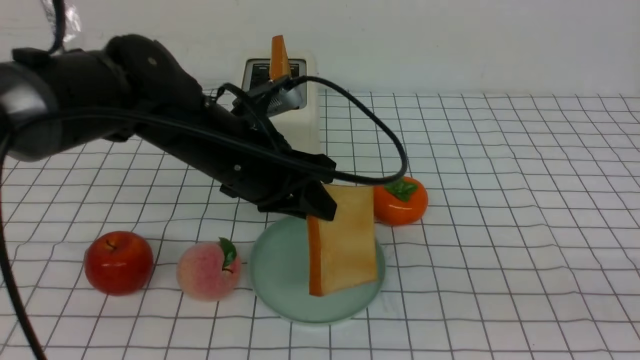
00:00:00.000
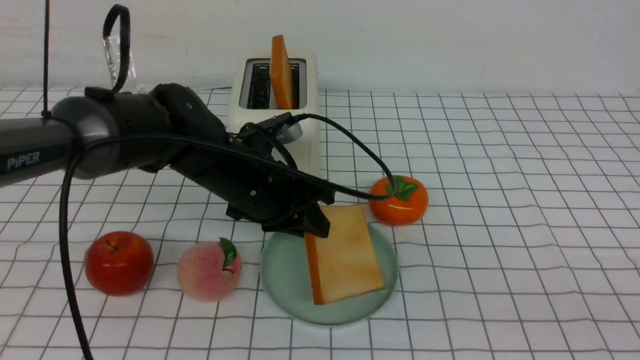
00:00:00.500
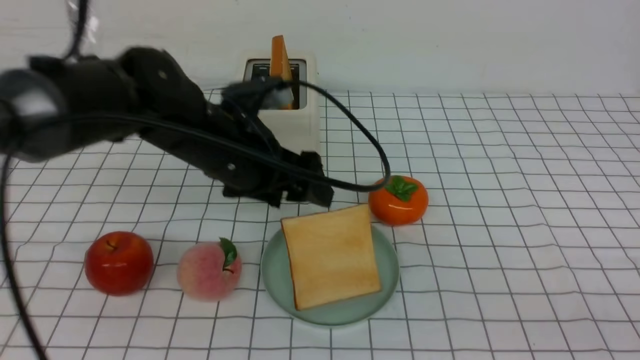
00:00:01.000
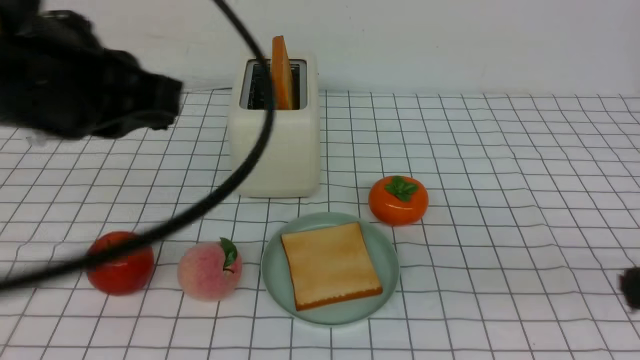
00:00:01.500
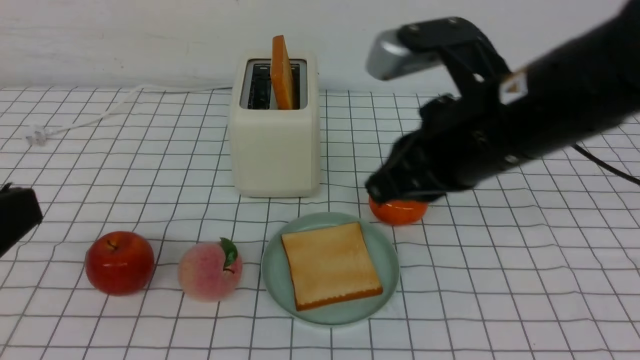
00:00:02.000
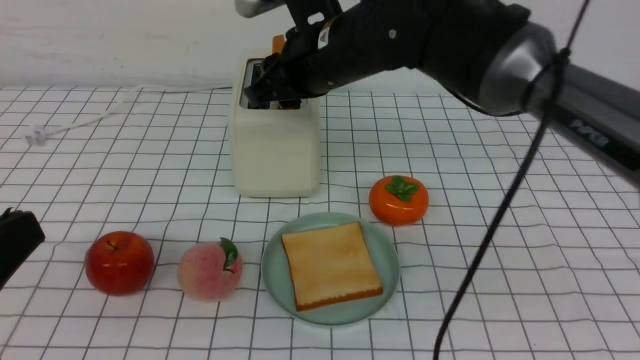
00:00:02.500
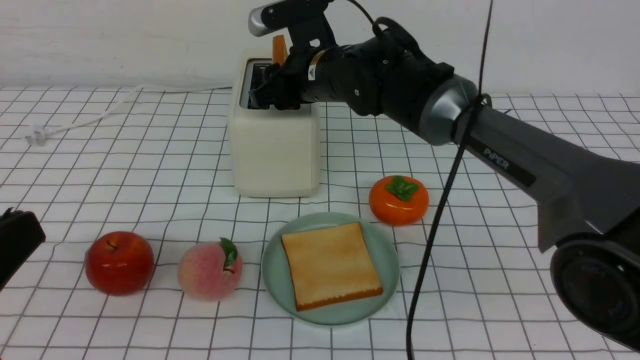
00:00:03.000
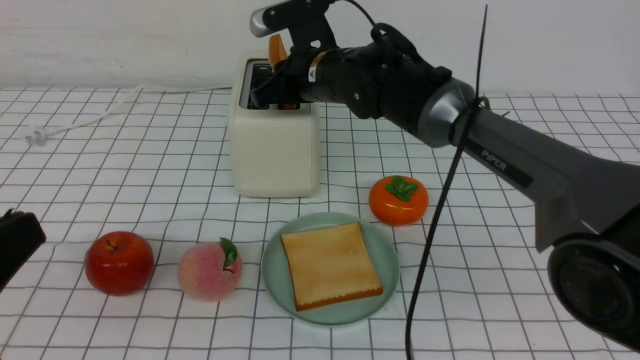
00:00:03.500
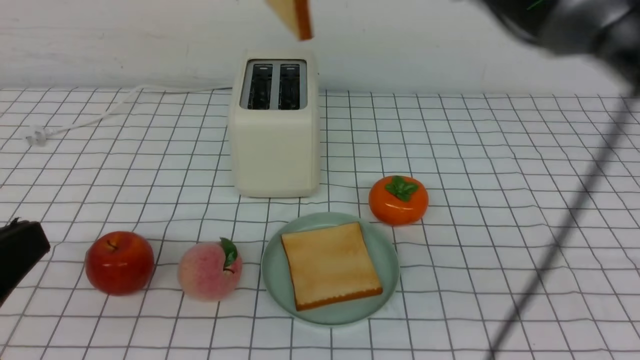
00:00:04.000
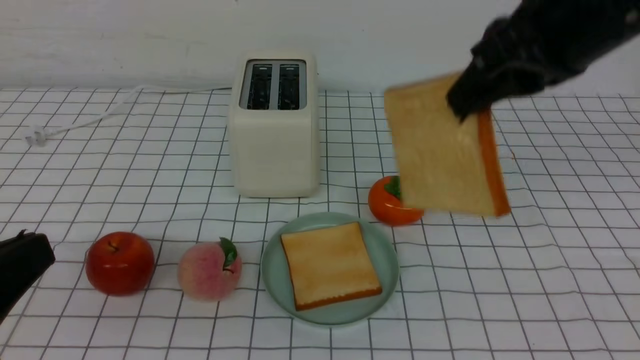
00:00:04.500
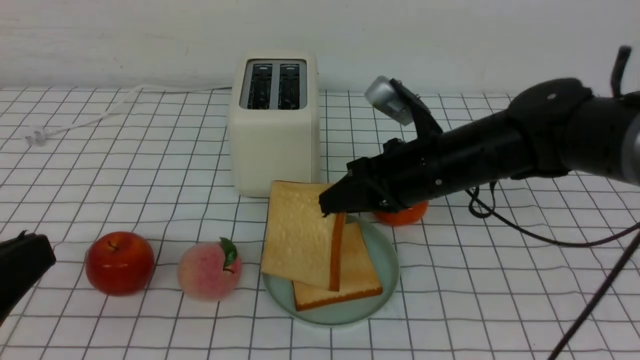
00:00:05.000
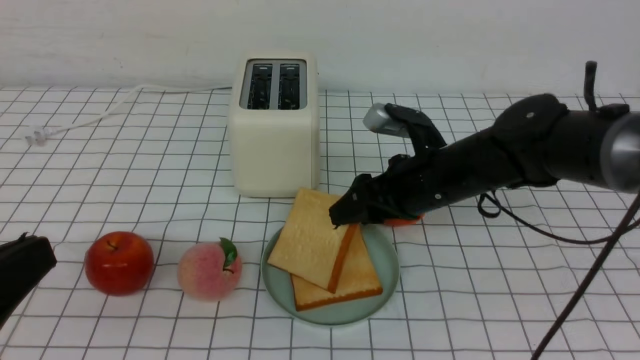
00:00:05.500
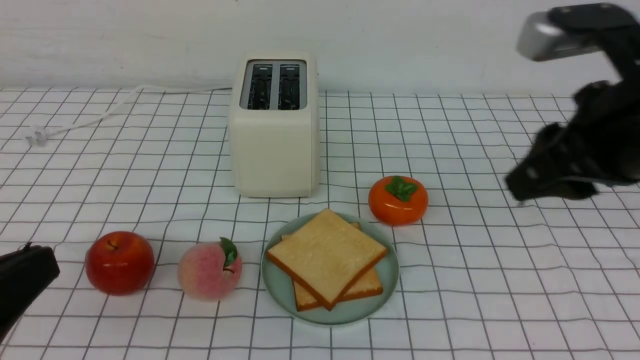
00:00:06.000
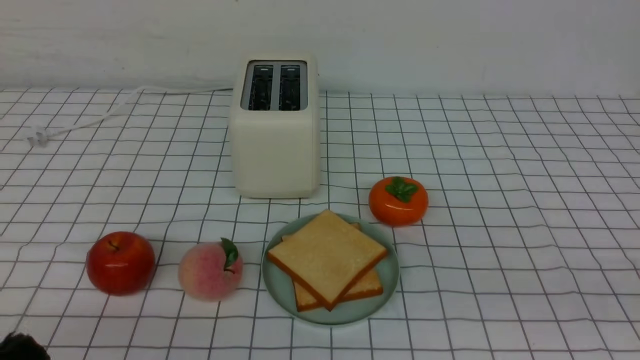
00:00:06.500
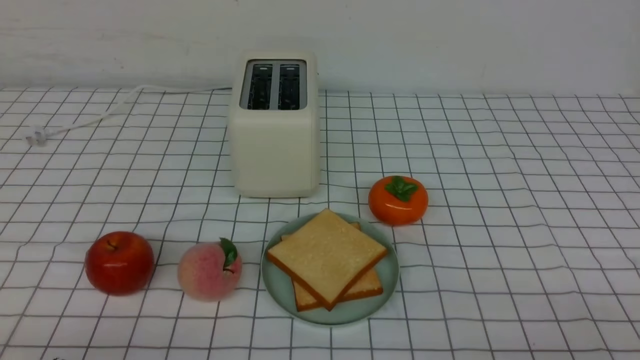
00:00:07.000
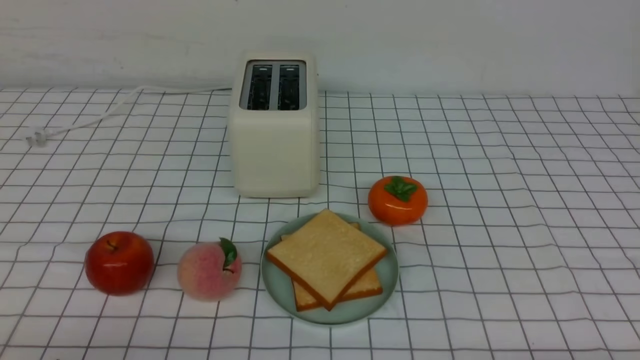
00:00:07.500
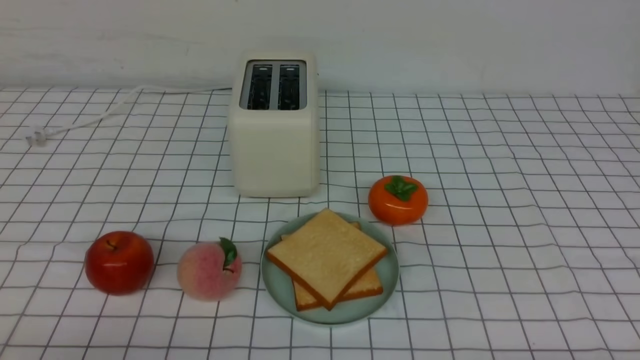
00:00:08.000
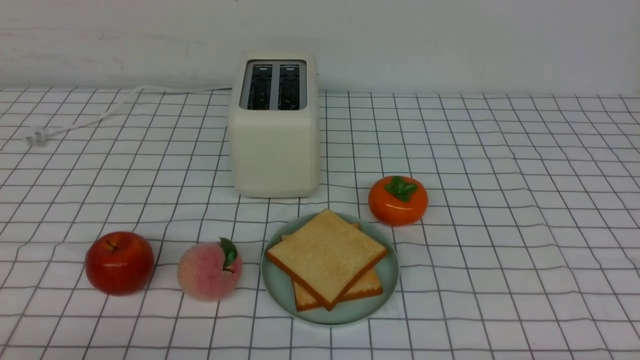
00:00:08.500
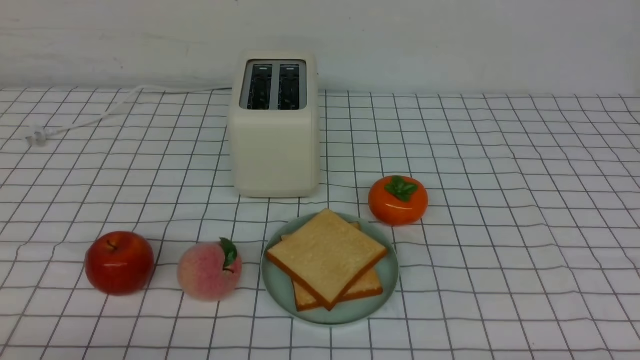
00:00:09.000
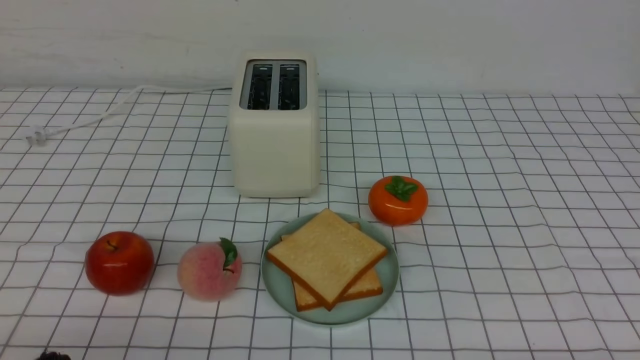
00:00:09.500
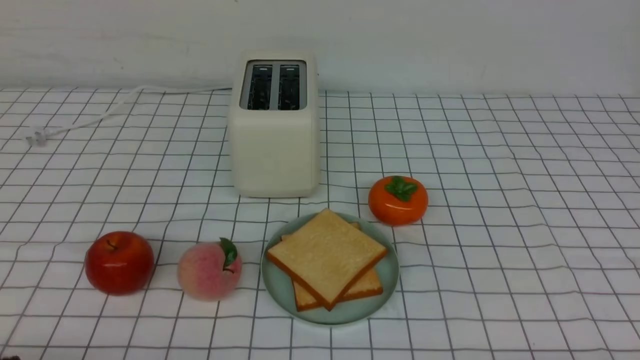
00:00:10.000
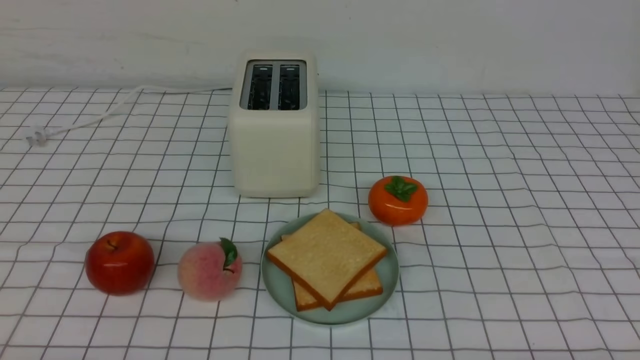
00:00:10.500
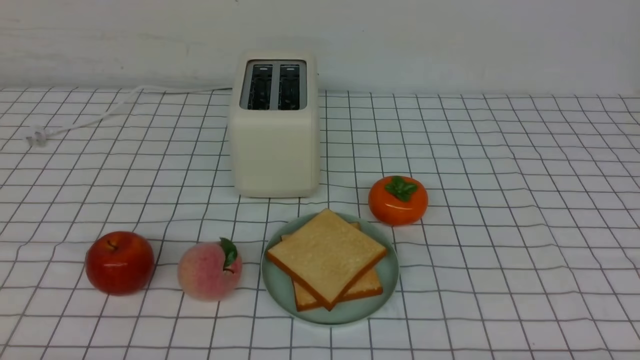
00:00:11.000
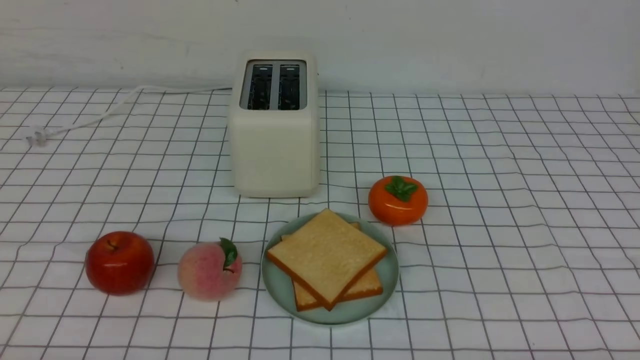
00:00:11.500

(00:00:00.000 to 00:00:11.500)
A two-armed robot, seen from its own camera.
Task of the whole recording: take toasted bread from bread machine on white checkered table place on plate.
Step, 00:00:01.500 - 00:00:03.500: use the right arm to take out a slice of bread.
Step, 00:00:04.000 - 00:00:05.500: use the right arm to put a slice of bread into the plate.
00:00:00.000 - 00:00:02.000: The right gripper heads forward and to the left, covering about 20 cm; the left gripper travels backward and to the left by roughly 25 cm, and opens, then closes once more.
00:00:02.000 - 00:00:04.000: The left gripper moves about 5 cm. The right gripper shifts about 20 cm forward and to the left, and opens and closes again.
00:00:04.000 - 00:00:06.000: The right gripper shifts about 20 cm to the right and backward, moves roughly 20 cm downward and comes back, and opens.
00:00:06.000 - 00:00:07.500: The right gripper is displaced downward, backward and to the right by roughly 30 cm, and closes its fingers. Meanwhile the left gripper shifts approximately 10 cm downward.

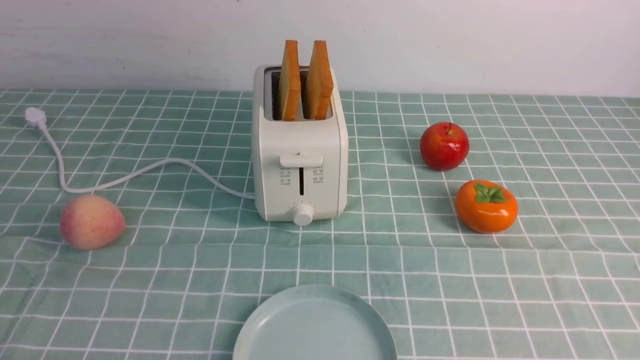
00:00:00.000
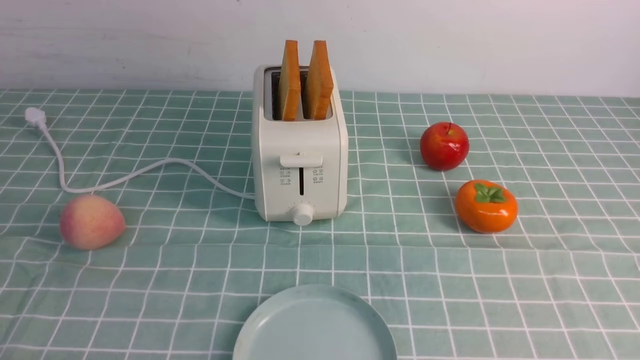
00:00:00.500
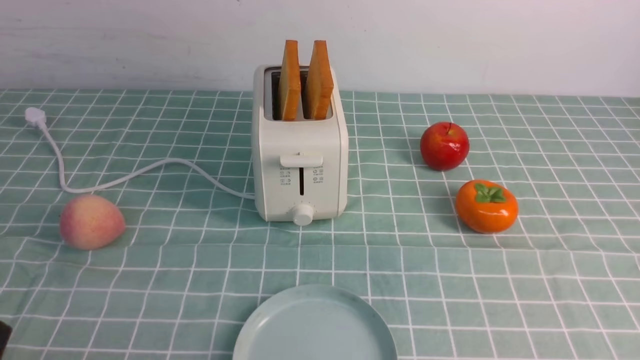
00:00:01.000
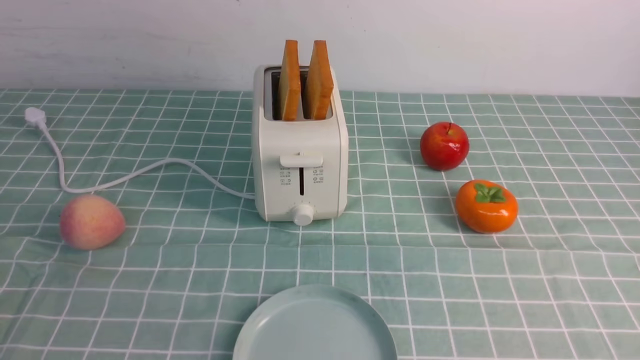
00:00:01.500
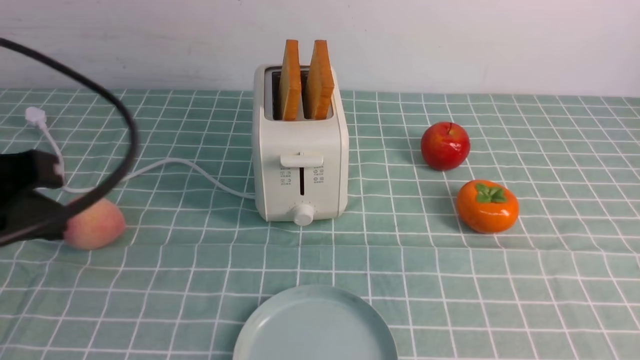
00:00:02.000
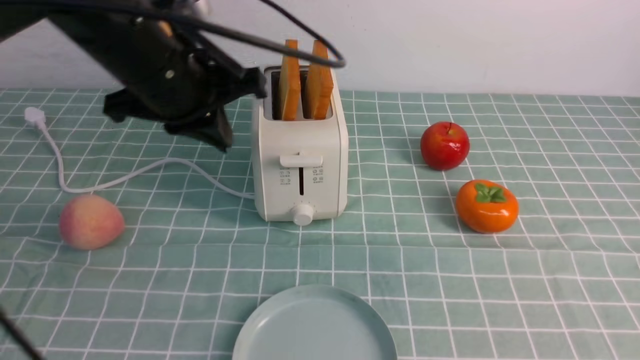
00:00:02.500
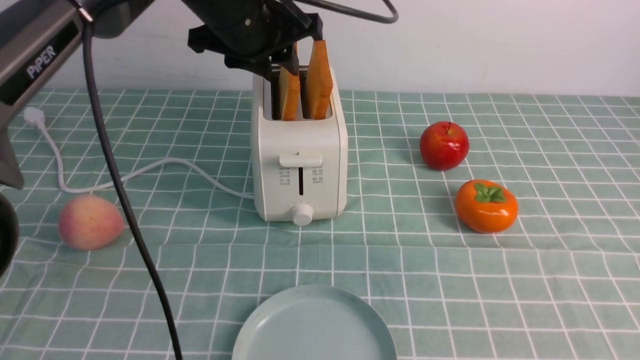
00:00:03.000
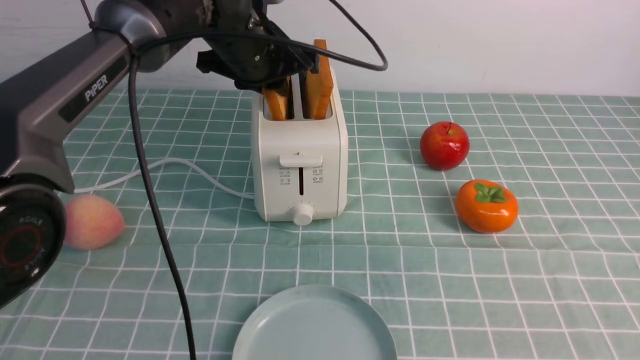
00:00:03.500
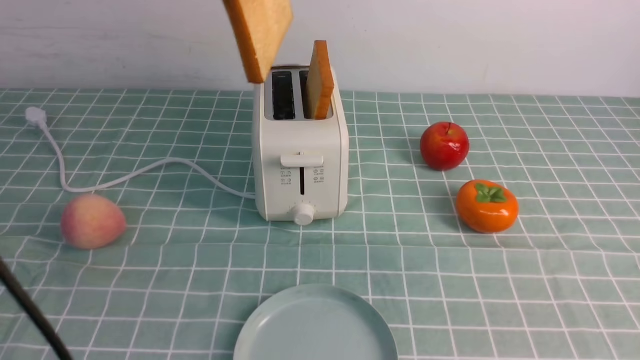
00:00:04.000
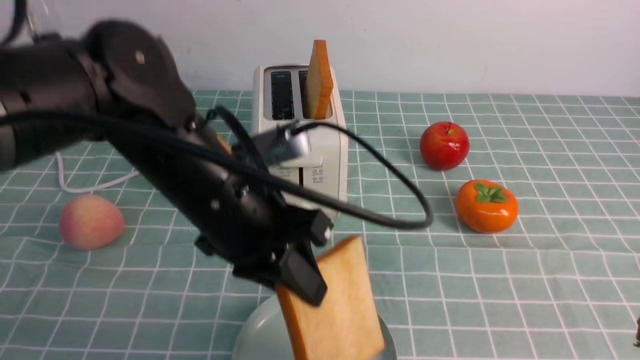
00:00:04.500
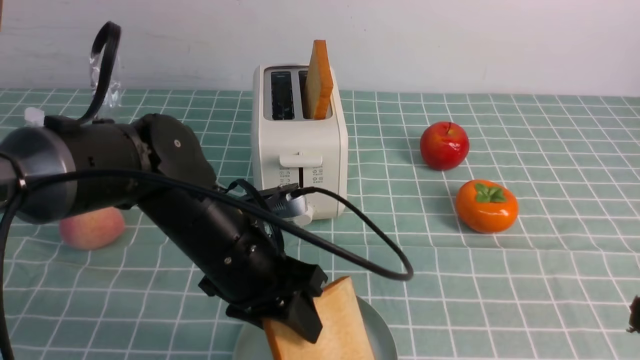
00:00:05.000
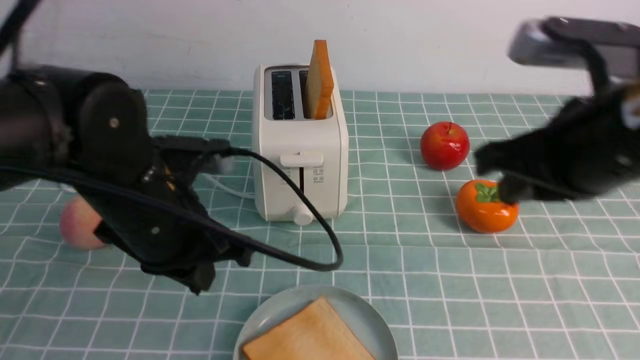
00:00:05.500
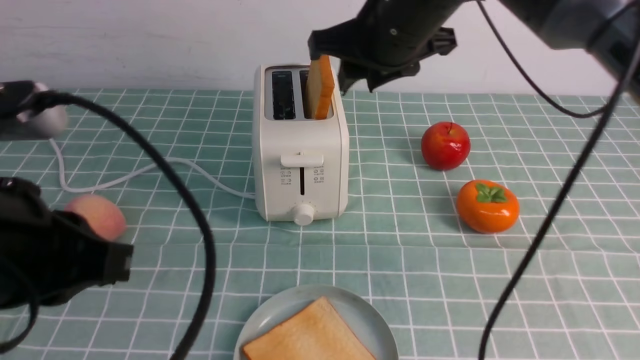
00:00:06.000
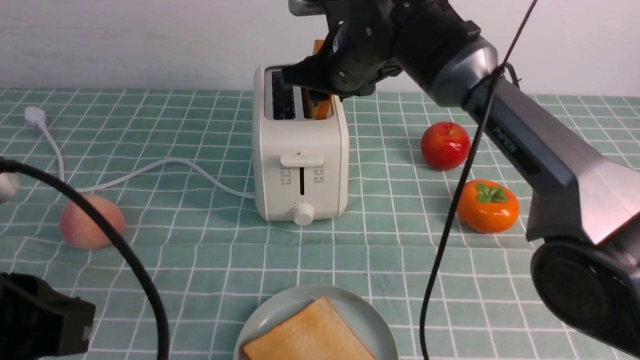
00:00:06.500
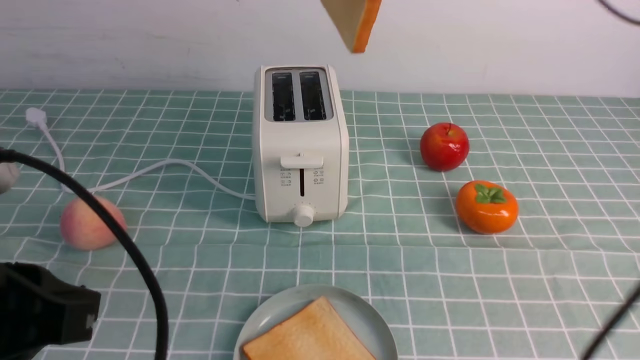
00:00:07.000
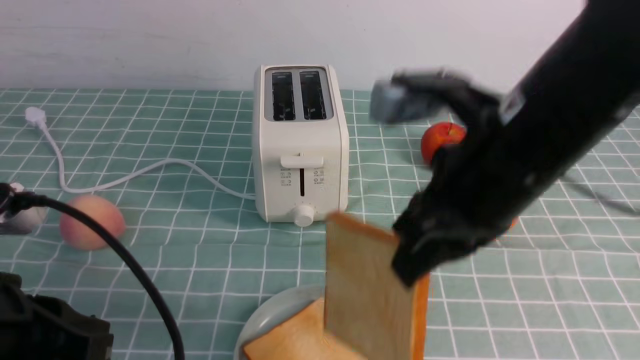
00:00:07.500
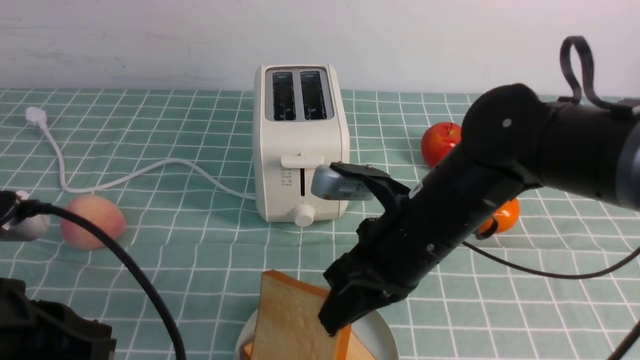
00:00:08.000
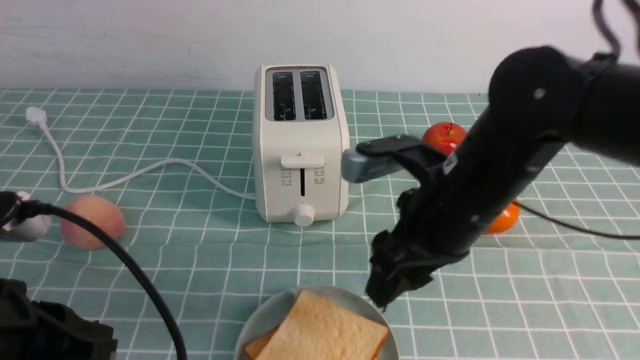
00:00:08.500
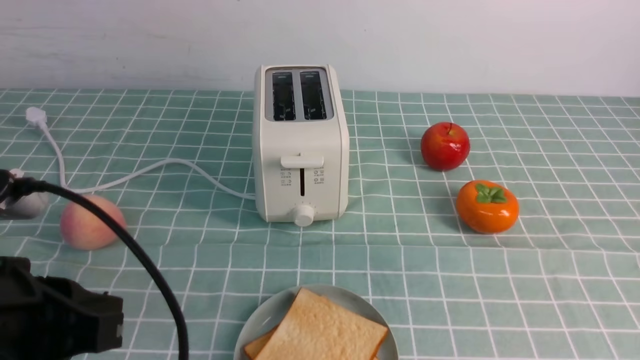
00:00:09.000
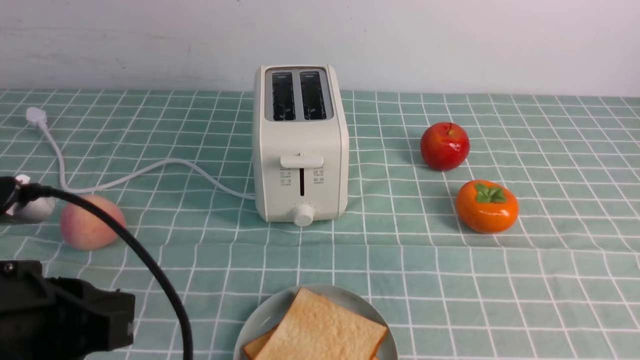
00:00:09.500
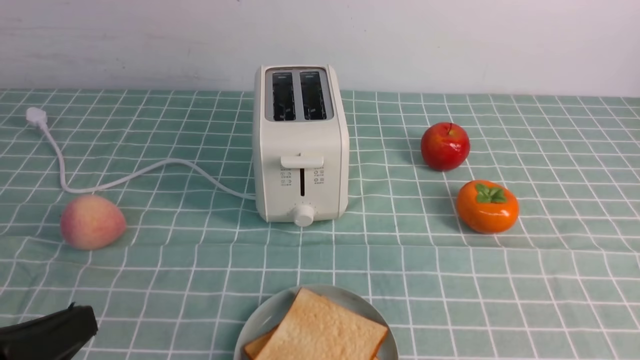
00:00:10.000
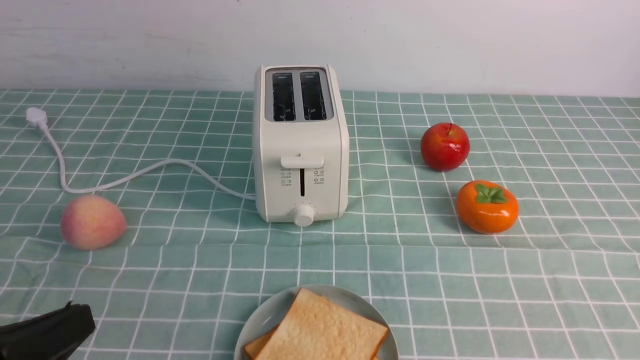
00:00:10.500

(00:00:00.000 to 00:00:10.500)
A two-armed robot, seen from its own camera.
Task of the whole recording: take toasted bread from bread machine on blue coffee table place on plate.
Step, 00:00:00.000 - 00:00:03.500: use the left arm to take out a slice of bread.
Step, 00:00:04.000 - 00:00:05.000: use the left arm to put a slice of bread into the empty plate.
Step, 00:00:05.500 - 00:00:07.000: use the right arm to take out a slice of bread.
Step, 00:00:07.500 - 00:00:08.500: use the right arm to put a slice of bread into the plate.
00:00:00.000 - 00:00:02.000: The left gripper is displaced upward and forward by approximately 25 cm, and closes up.
00:00:02.000 - 00:00:04.000: The left gripper moves forward, to the right and upward, roughly 20 cm, and opens, then closes once more; the right gripper moves upward, about 5 cm, and closes.
00:00:04.000 - 00:00:06.500: The left gripper heads backward, downward and to the left, covering roughly 25 cm, and opens, then closes again. Meanwhile the right gripper is displaced forward and to the left by approximately 40 cm, and opens its fingers.
00:00:06.500 - 00:00:08.500: The right gripper swings up and down, some 20 cm each way, with 2 reversals, and closes, then opens again.
00:00:08.500 - 00:00:10.500: The left gripper moves about 5 cm; the right gripper heads backward and to the right, covering approximately 30 cm, and closes its fingers.
